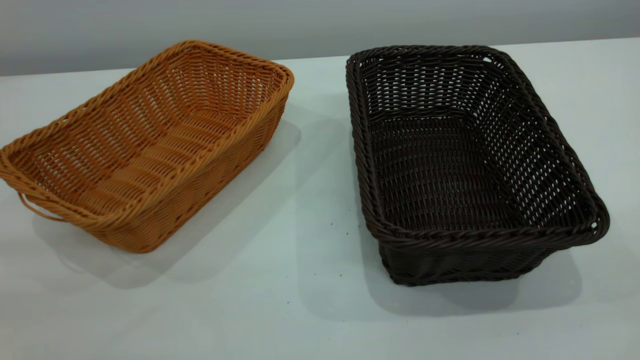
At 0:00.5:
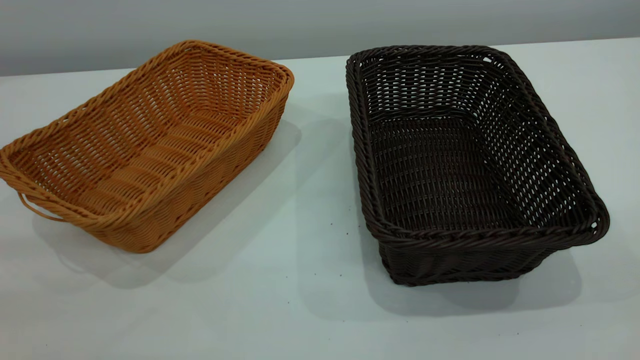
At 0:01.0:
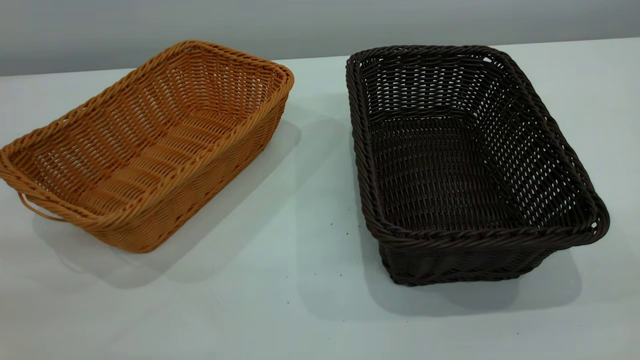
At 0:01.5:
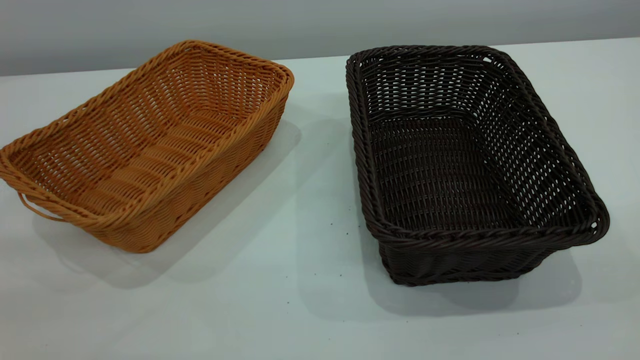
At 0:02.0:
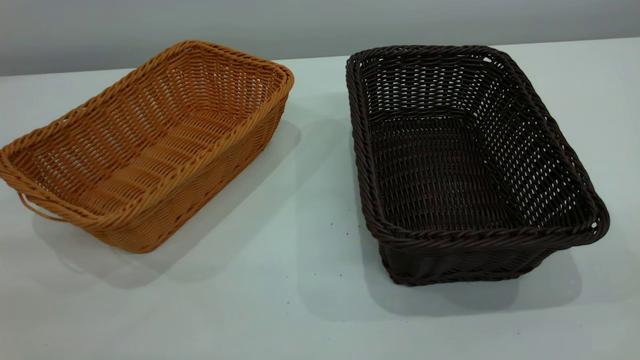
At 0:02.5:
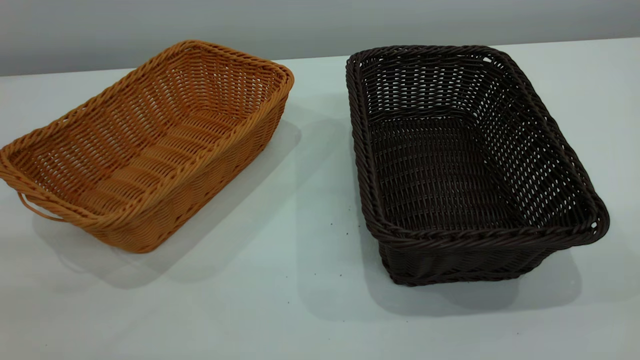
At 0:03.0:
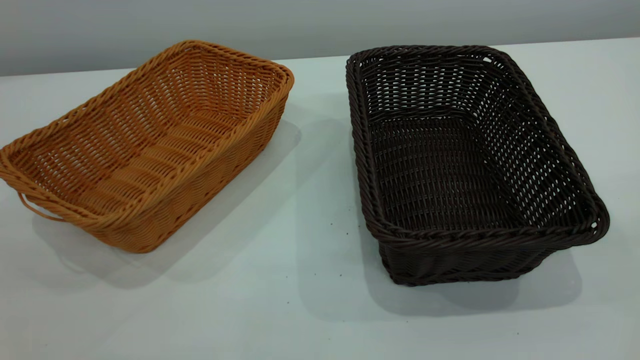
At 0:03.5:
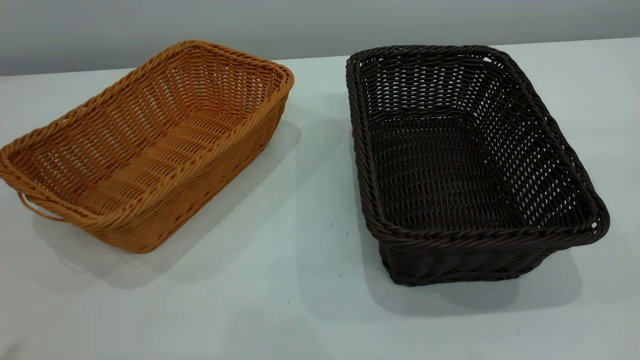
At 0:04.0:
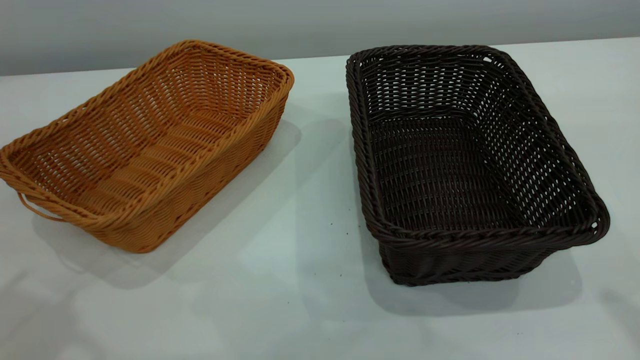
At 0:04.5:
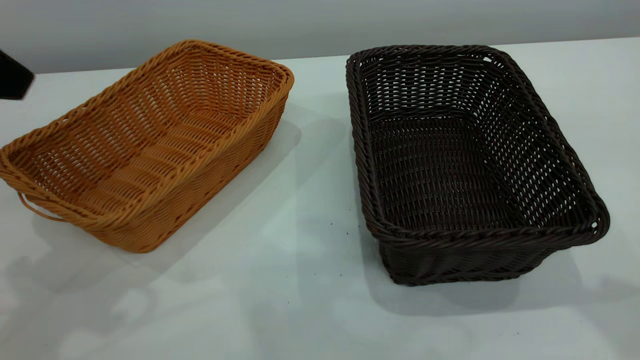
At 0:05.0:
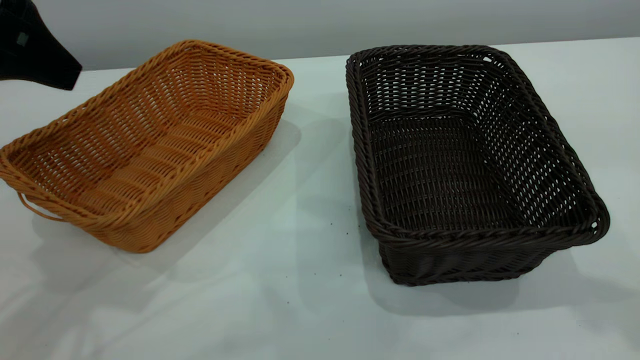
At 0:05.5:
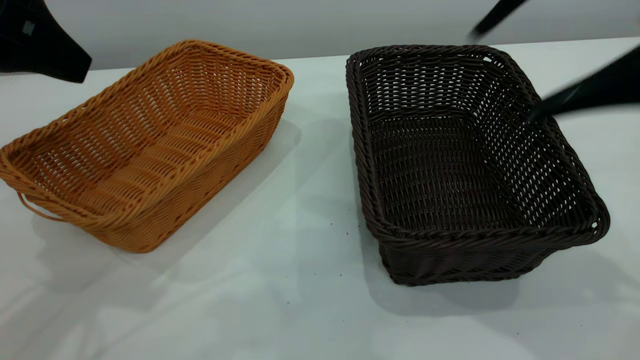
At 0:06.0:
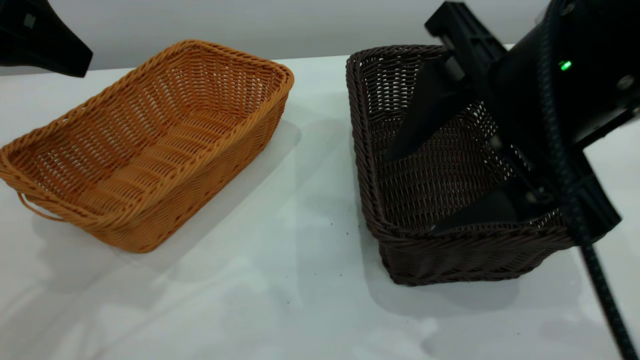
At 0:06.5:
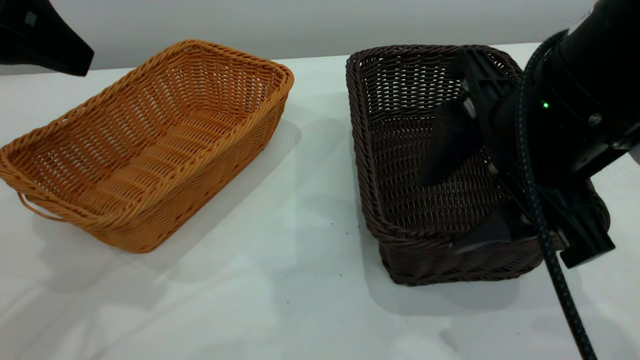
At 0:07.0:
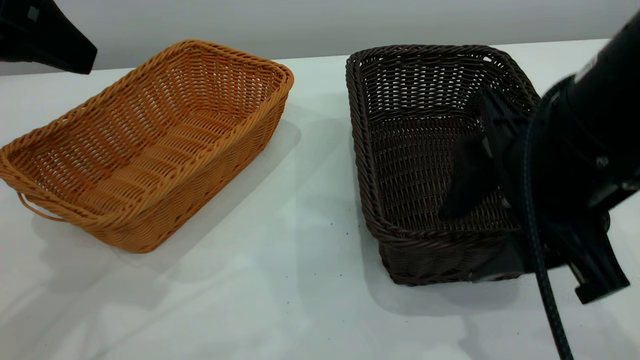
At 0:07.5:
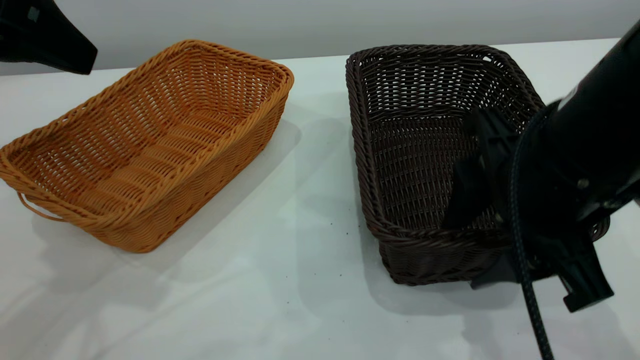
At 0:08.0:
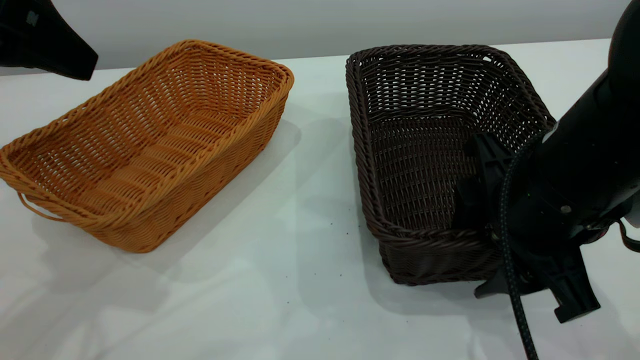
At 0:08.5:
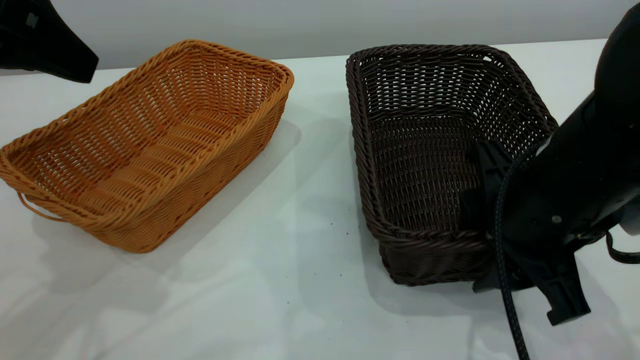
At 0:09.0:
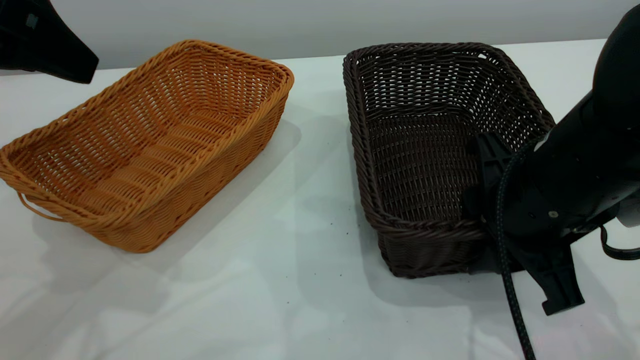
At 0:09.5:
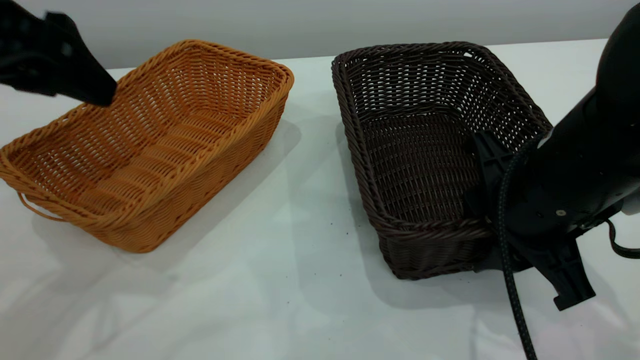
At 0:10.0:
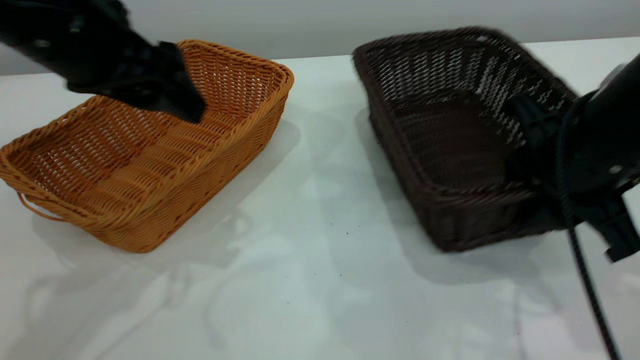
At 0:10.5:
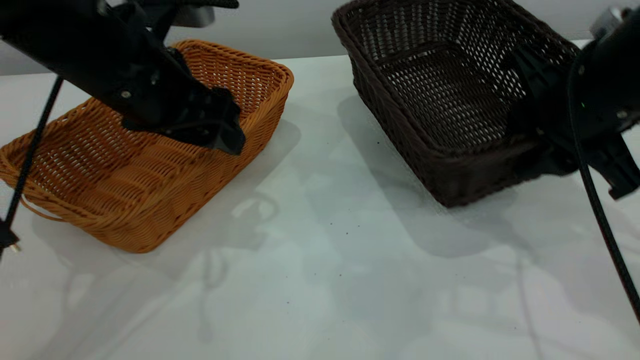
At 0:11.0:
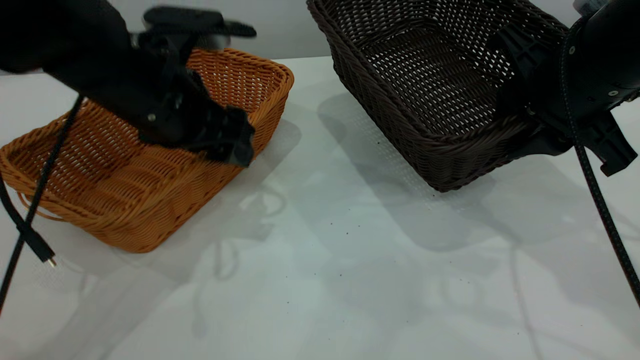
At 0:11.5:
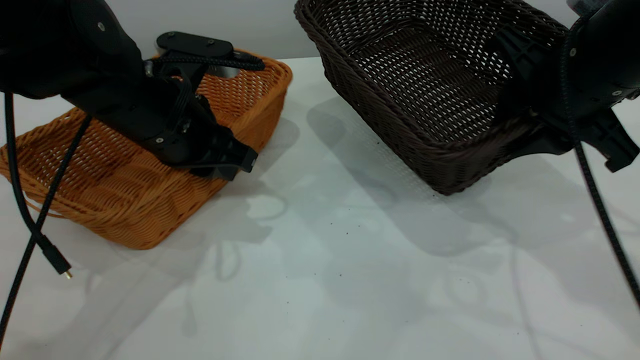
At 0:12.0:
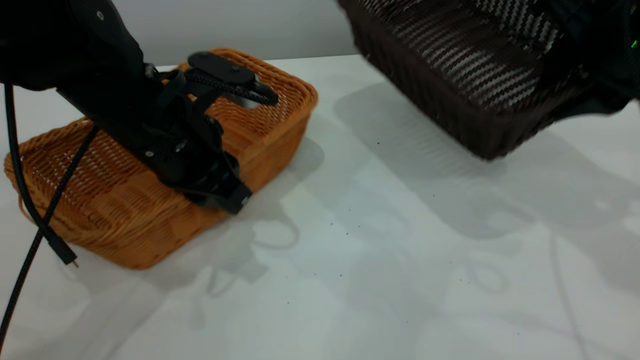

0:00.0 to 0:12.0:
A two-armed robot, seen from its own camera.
Task of the whole recording: the left gripper grasp the brown basket and place it in the center of the table, the right gripper grasp the black basket and place it inside the brown one.
Step, 0:00.0 to 0:11.0: Pick up the light basket with the right gripper.
0:00.0 to 0:02.0: Both grippers stay about where they are.
0:04.0 to 0:06.0: The left gripper heads forward, covering about 10 cm; the right gripper shifts some 20 cm to the left and downward.
0:06.0 to 0:08.0: The right gripper moves downward, roughly 10 cm.
0:08.0 to 0:10.0: The left gripper moves downward, to the right and forward, some 10 cm. Meanwhile the right gripper shifts by about 5 cm.
0:10.0 to 0:12.0: The left gripper moves downward, roughly 10 cm, and closes its fingers; the right gripper is displaced forward and upward by some 10 cm.

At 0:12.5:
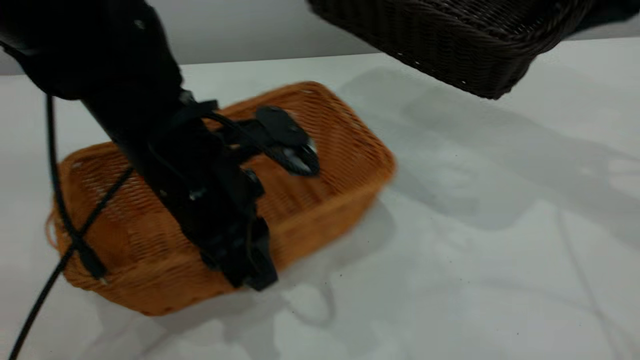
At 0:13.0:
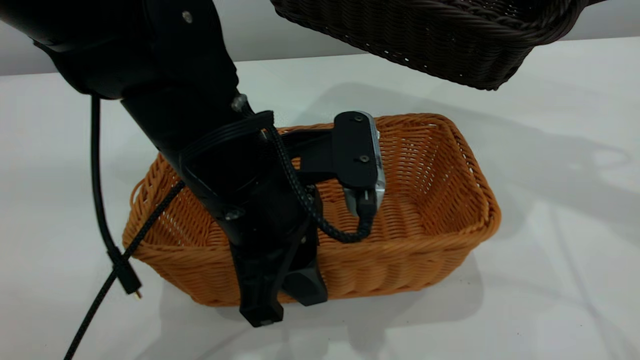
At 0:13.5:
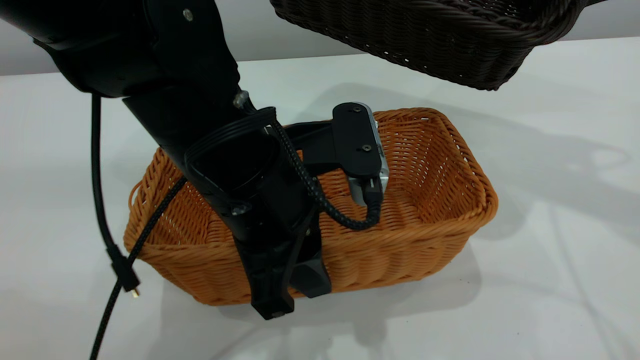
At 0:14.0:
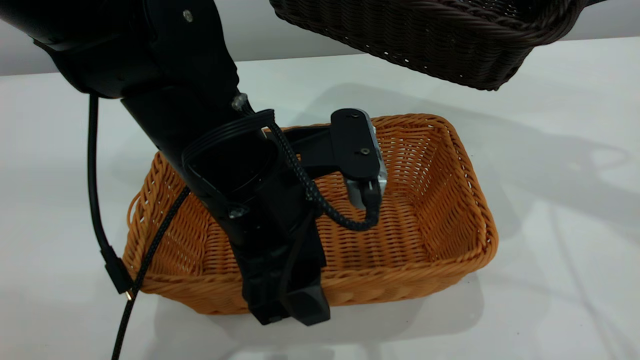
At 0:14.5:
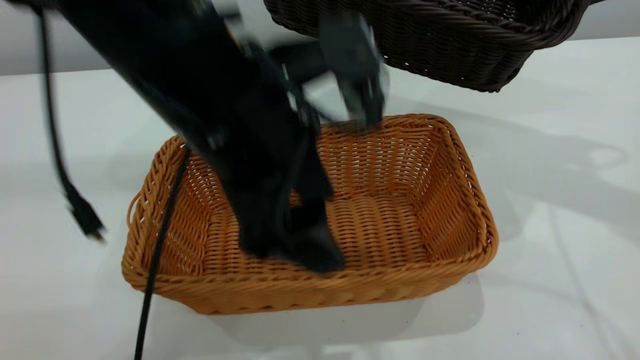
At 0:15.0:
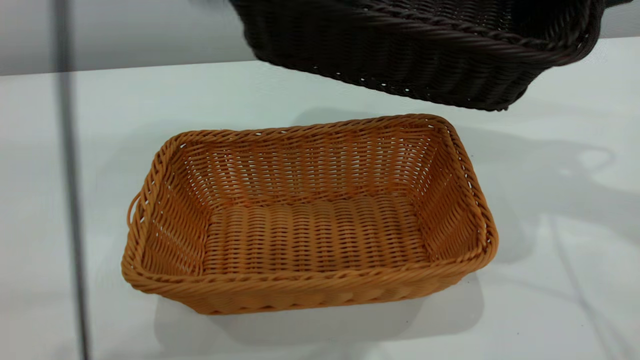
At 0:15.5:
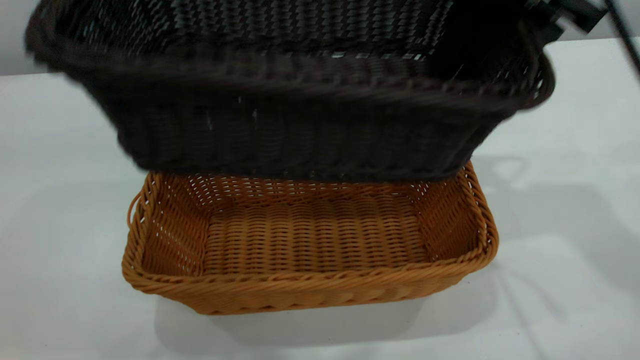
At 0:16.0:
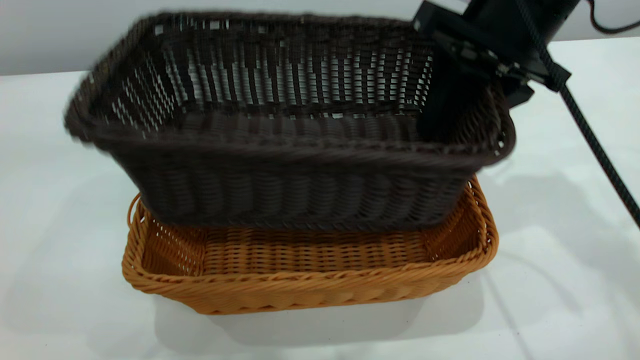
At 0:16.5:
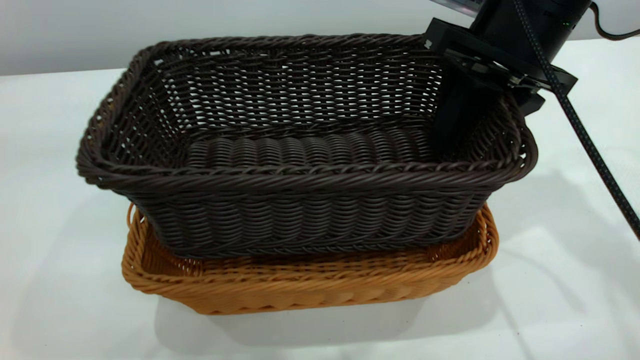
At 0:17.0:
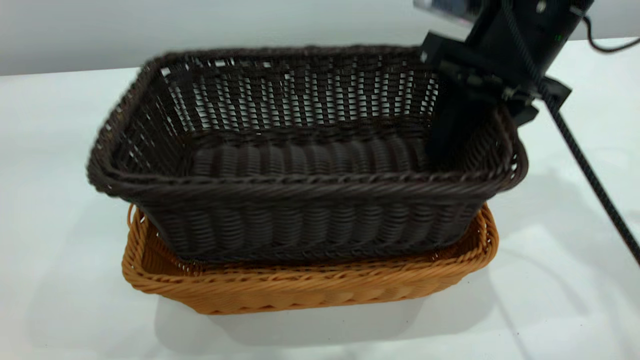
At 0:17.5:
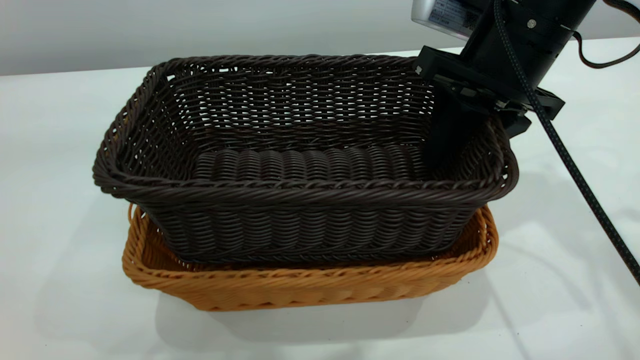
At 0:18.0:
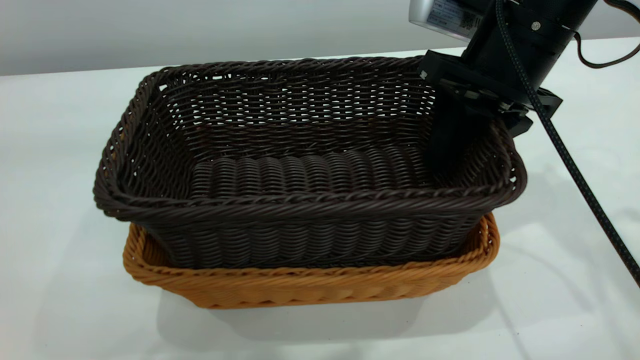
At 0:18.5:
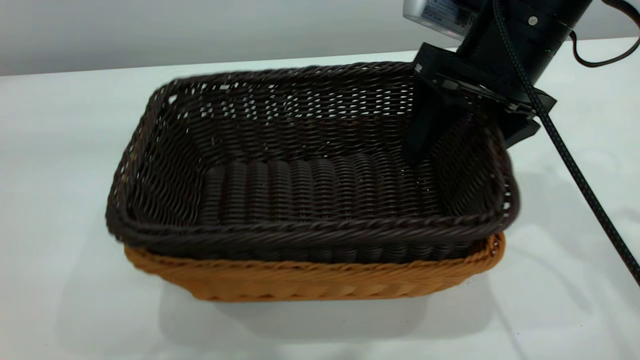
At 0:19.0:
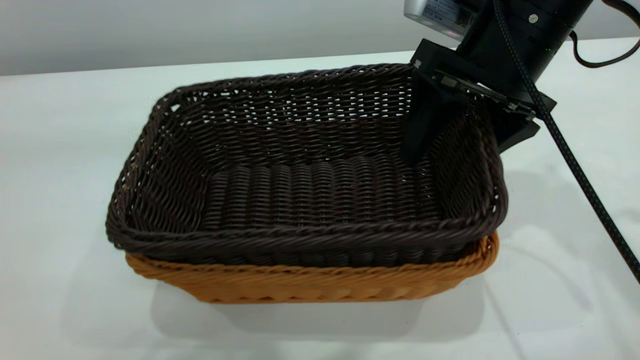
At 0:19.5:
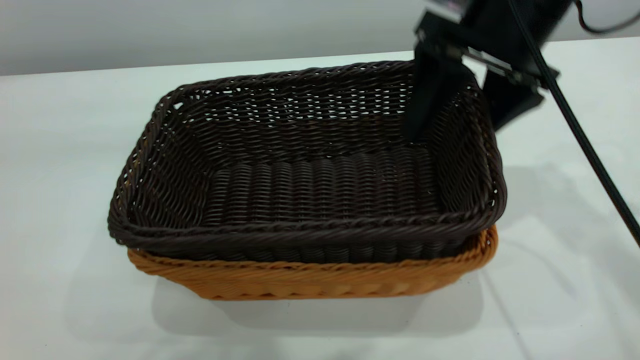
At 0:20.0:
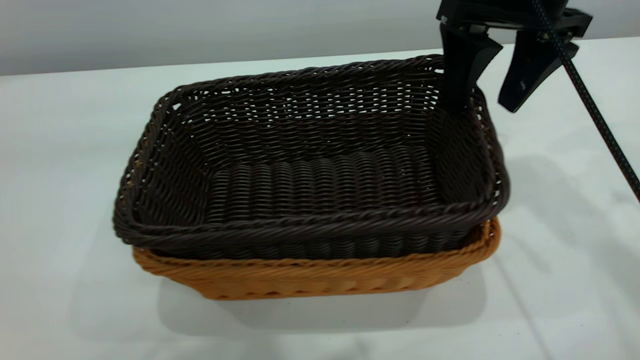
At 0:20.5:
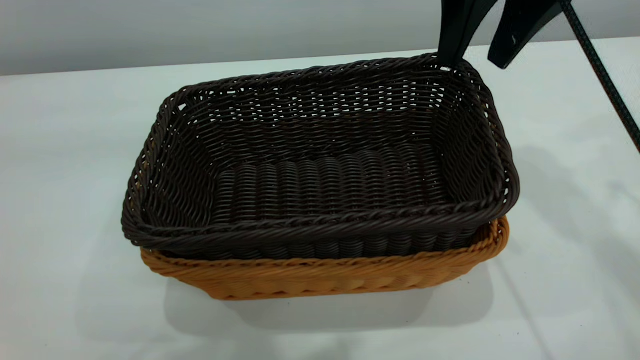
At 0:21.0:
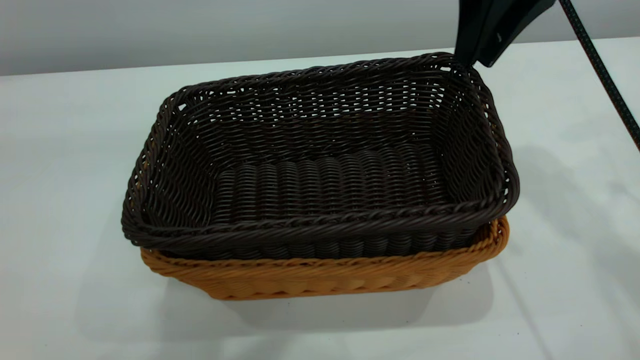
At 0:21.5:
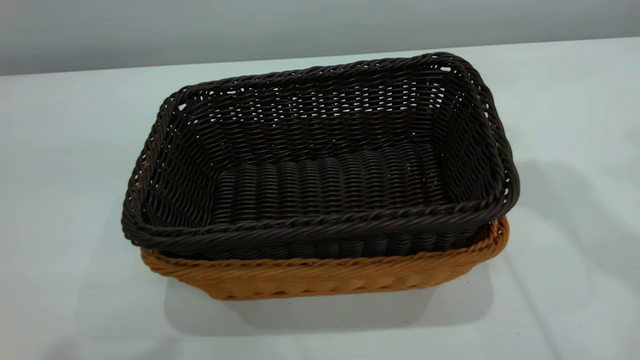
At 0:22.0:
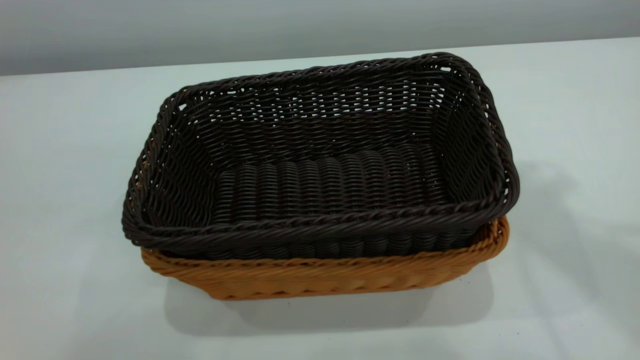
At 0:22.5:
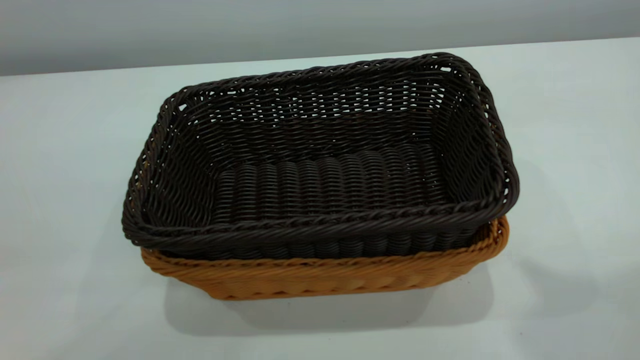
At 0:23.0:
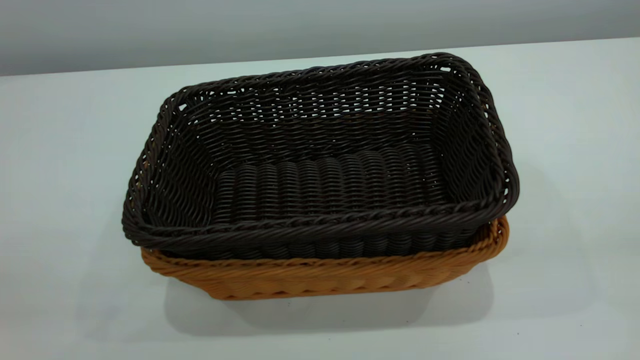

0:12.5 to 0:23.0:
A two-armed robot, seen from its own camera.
Task of the whole recording: the left gripper grasp the brown basket and place it in the center of the table, the right gripper grasp the black basket and place it inside the brown one.
Step, 0:12.5 to 0:14.5: Place the light-colored basket in the center.
Step, 0:15.0 to 0:20.0: Place the dark basket on top of the light basket.
0:12.5 to 0:14.5: The left gripper moves upward, roughly 10 cm, and opens up.
0:14.5 to 0:16.5: The right gripper moves to the left and downward, approximately 10 cm. Meanwhile the left gripper heads upward, covering some 25 cm.
0:16.5 to 0:19.0: The right gripper opens.
0:19.0 to 0:21.0: The right gripper shifts roughly 10 cm upward, and closes its fingers; the left gripper shifts by about 5 cm, and closes its fingers.
0:21.0 to 0:23.0: The right gripper shifts about 35 cm backward and to the right.
